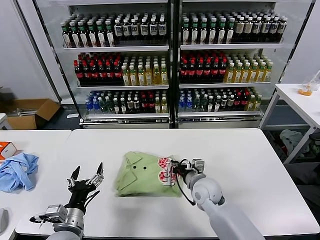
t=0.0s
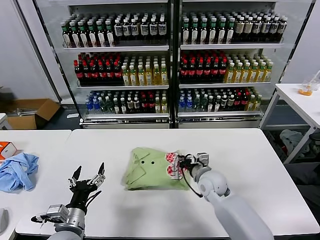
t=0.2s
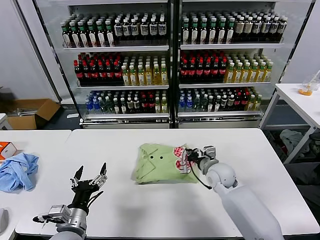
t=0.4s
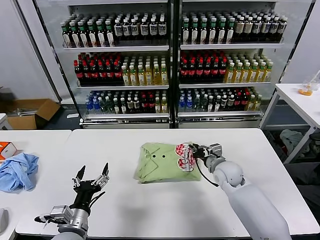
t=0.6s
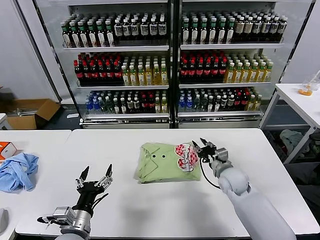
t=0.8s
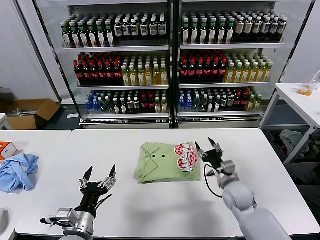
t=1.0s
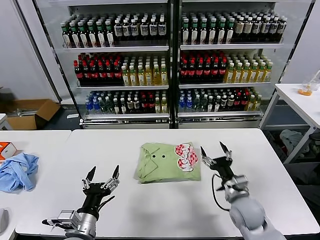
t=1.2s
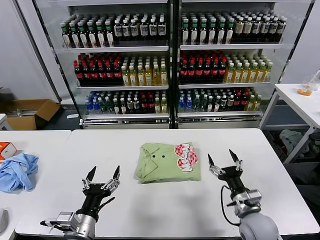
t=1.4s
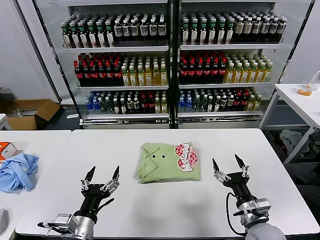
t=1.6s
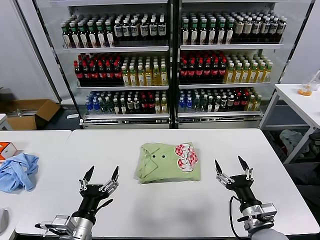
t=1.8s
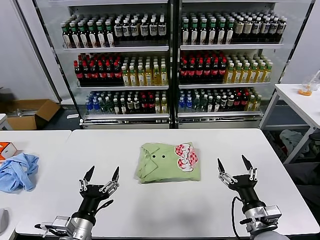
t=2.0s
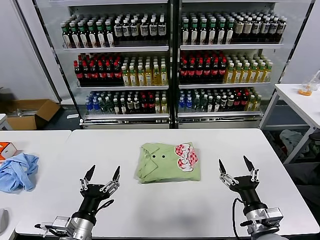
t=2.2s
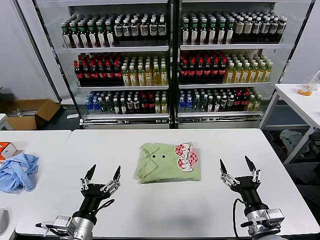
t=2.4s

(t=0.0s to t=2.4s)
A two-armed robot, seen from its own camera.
Task of the whole recording: fold and organize the clothes.
t=0.0s - t=1.2s: The right gripper shifts some 15 cm to the right and backward, and opens.
t=1.2s - t=2.4s: The right gripper heads backward, covering approximately 15 cm.

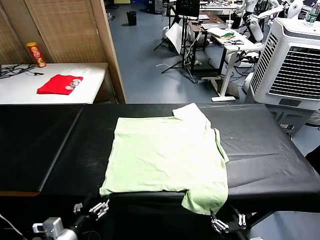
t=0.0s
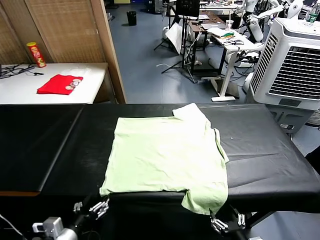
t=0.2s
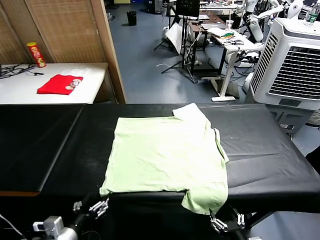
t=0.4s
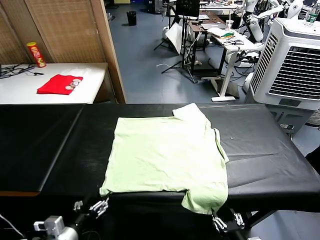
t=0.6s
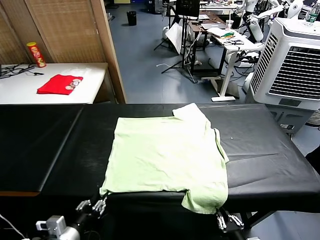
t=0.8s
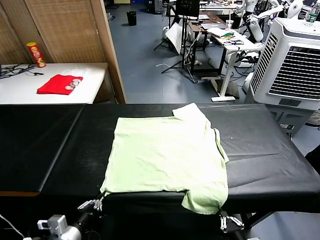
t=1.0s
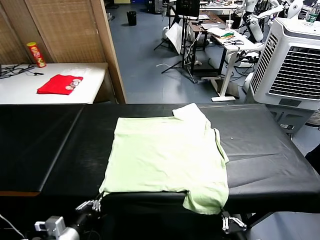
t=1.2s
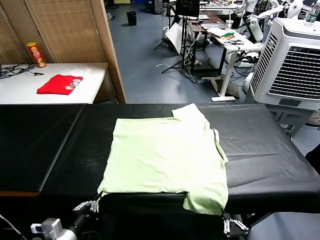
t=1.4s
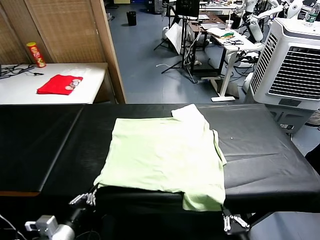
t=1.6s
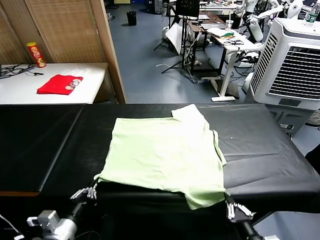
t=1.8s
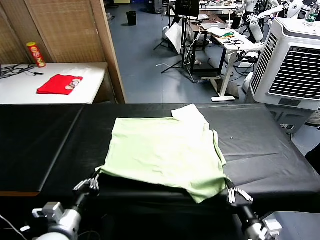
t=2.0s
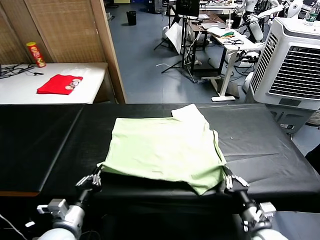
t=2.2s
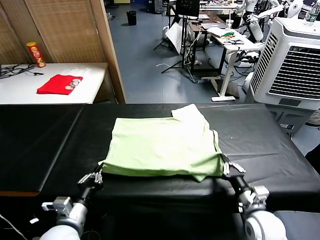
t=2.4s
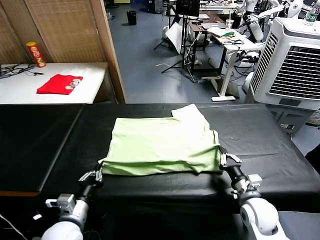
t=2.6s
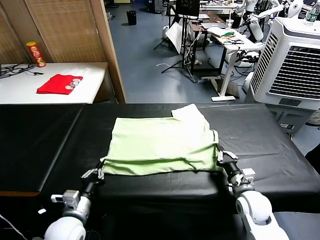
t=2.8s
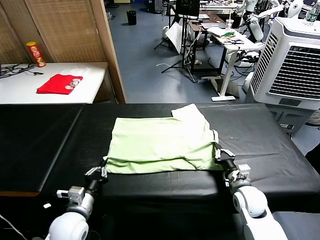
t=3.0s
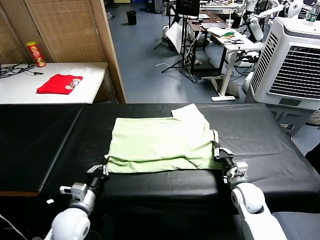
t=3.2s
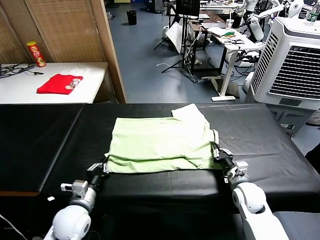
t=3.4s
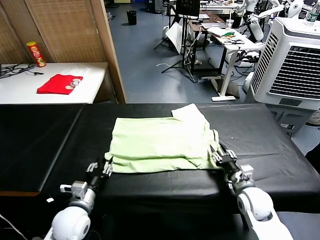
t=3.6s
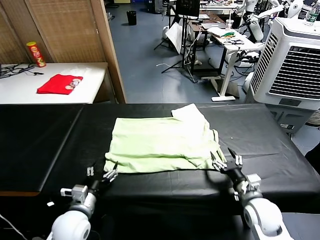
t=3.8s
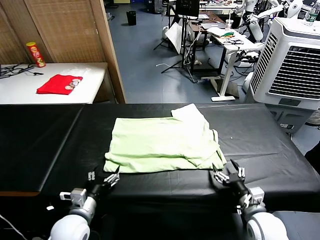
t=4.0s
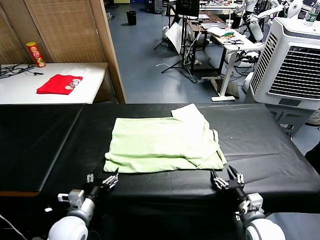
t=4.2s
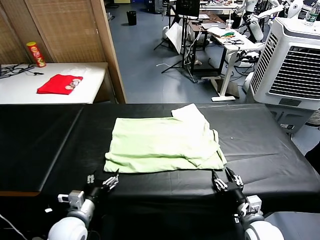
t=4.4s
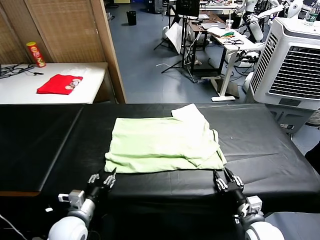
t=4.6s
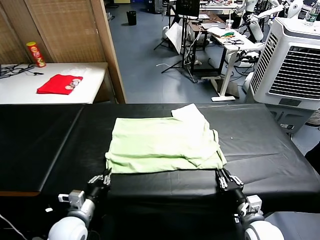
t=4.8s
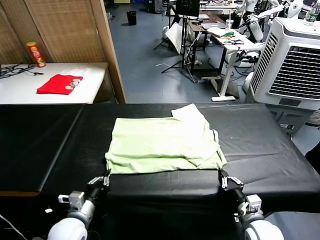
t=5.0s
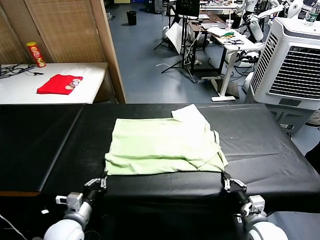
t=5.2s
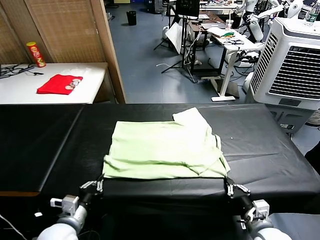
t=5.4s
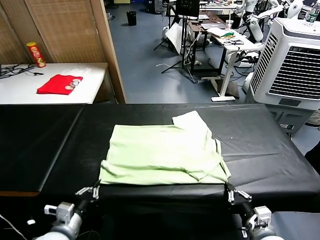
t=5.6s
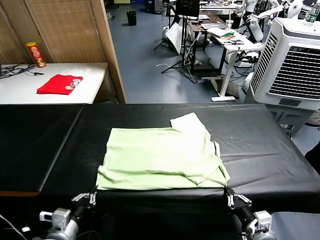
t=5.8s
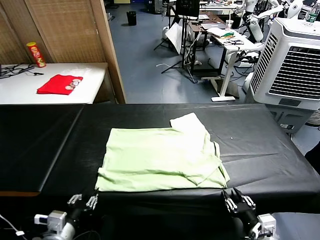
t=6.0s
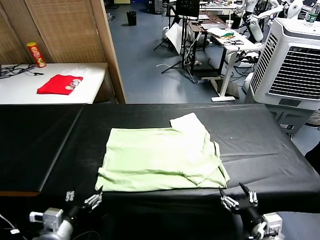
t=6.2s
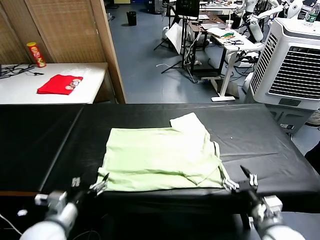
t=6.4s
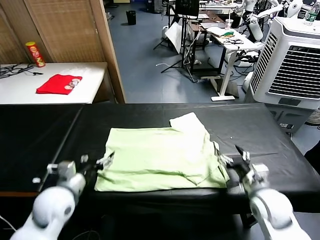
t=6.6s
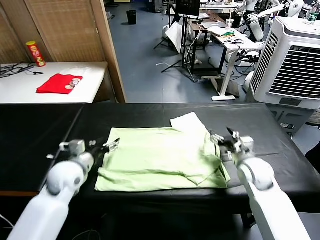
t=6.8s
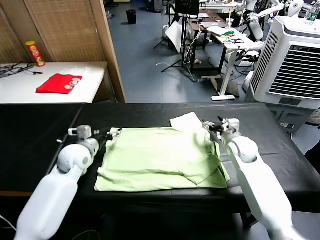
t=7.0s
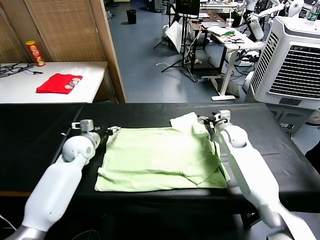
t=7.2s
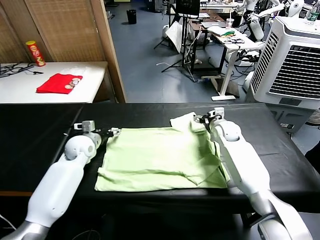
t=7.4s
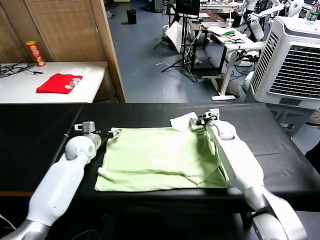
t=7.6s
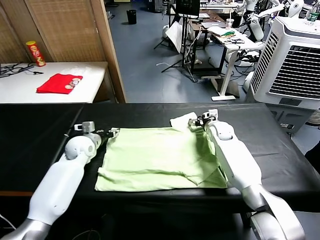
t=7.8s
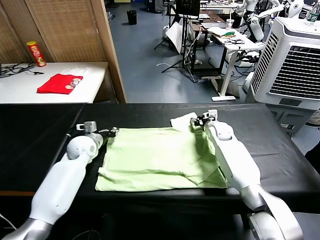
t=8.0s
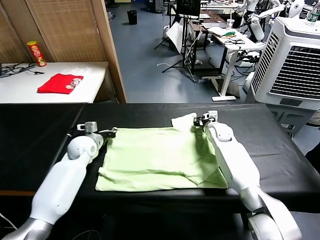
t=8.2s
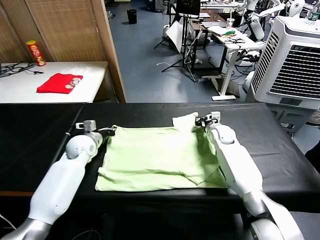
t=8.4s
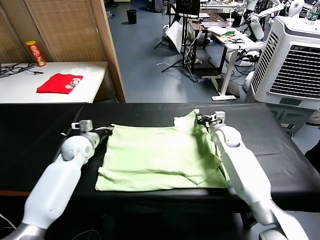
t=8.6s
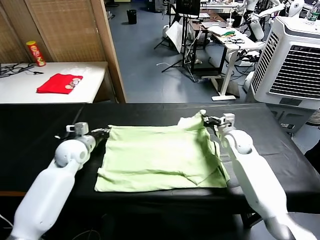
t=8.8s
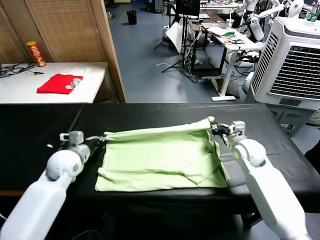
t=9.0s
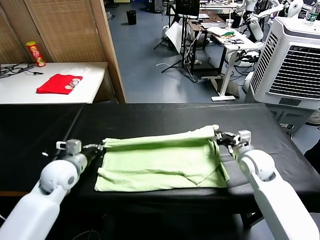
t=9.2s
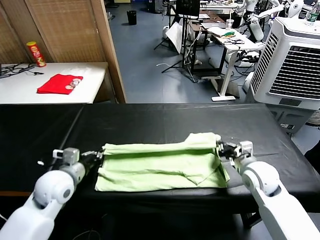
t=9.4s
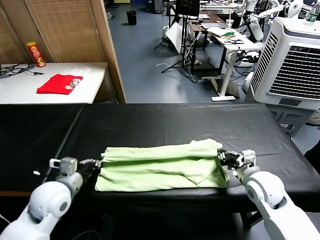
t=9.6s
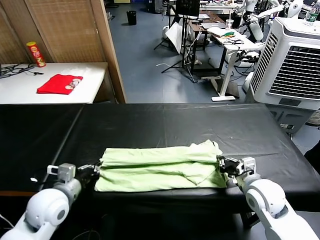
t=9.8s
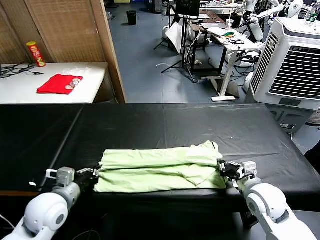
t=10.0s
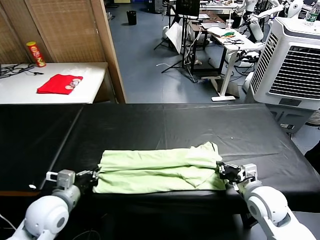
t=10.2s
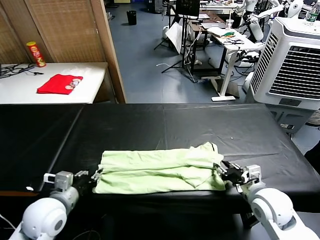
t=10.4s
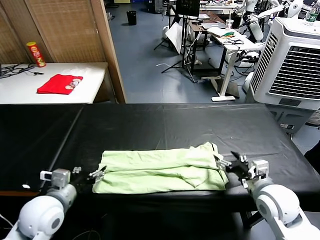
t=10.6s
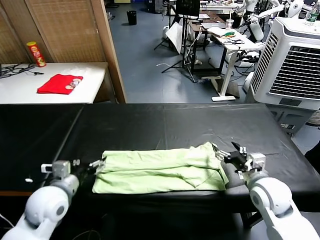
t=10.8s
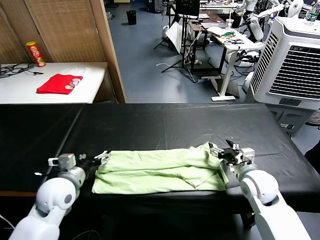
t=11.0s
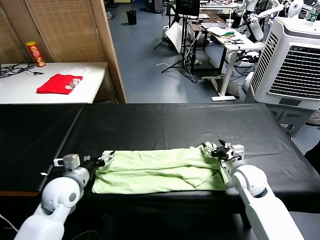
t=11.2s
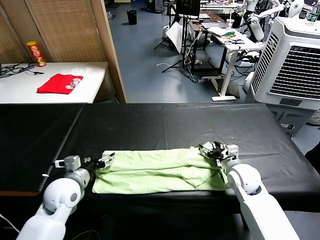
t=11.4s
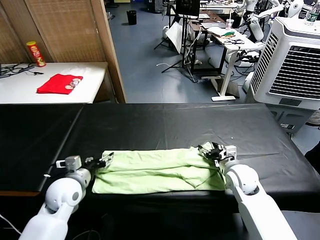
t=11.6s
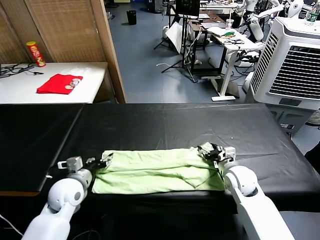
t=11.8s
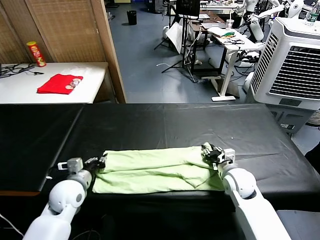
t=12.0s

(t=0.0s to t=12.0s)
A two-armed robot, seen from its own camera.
Task of the whole recording: fold and organize the clothes.
Step, t=0.0s - t=1.2s: use both grippers simultaneously to clamp the lower edge of the clothing fabric.
Step, t=1.4s - t=3.6s: use both grippers to drag the lower edge of the fabric forward and fold it over the upper edge.
Step, t=3.8s - t=6.0s: Drag the clothes downward with both gripper.
Step, t=6.2s - t=8.2s: use both grippers simultaneously to clamp the upper edge of the clothing fabric.
Step, t=8.4s - t=10.6s: use both grippers to drag the upper edge of the fabric backward and fold it over the lower edge.
t=1.6s - t=3.0s: The left gripper shifts about 10 cm forward and downward. The right gripper is displaced forward by roughly 20 cm.
t=3.0s - t=4.4s: The left gripper opens; the right gripper travels backward by roughly 15 cm, and opens.
t=4.4s - t=6.0s: The left gripper moves backward and upward, roughly 10 cm, and closes, then opens again, while the right gripper is displaced upward and backward by about 10 cm, and opens up.
t=6.0s - t=7.6s: The two grippers go some 40 cm forward. The left gripper opens its fingers.
t=7.6s - t=9.0s: The right gripper goes roughly 20 cm backward, and closes its fingers; the left gripper is displaced backward by approximately 10 cm, and closes.
t=9.0s - t=10.4s: The grippers both shift backward by roughly 15 cm. The right gripper opens its fingers. Meanwhile the left gripper opens.
t=10.4s - t=12.0s: The left gripper heads forward and downward, covering about 10 cm, and opens, then closes again, while the right gripper goes about 15 cm forward, downward and to the left, and closes.

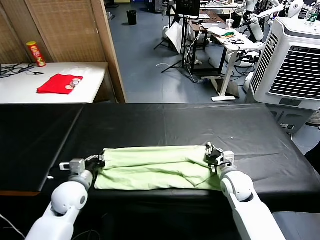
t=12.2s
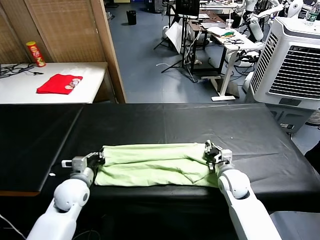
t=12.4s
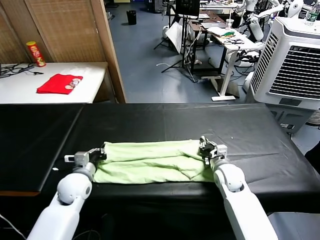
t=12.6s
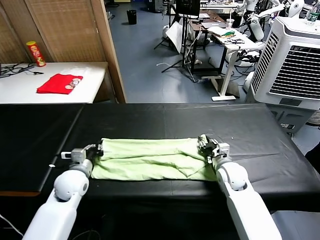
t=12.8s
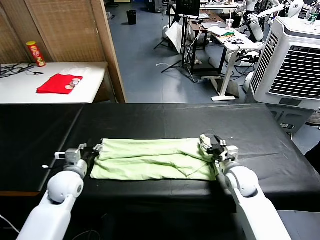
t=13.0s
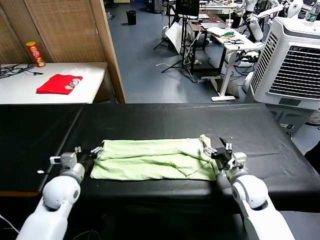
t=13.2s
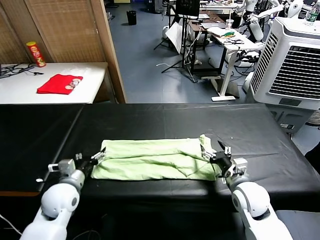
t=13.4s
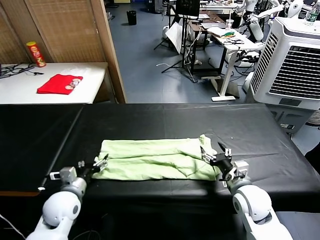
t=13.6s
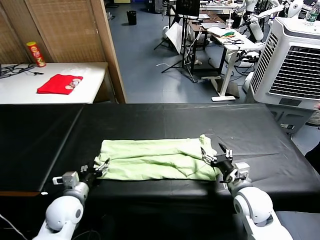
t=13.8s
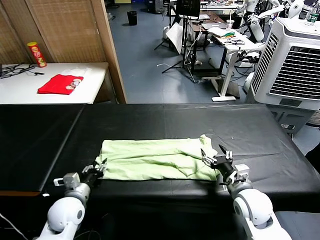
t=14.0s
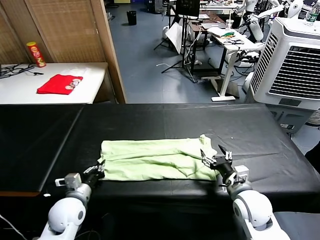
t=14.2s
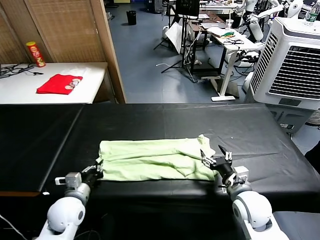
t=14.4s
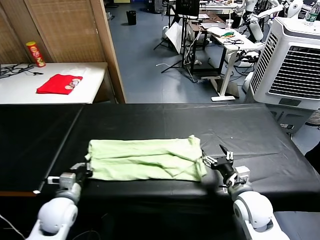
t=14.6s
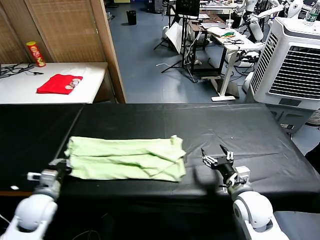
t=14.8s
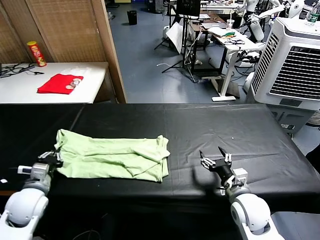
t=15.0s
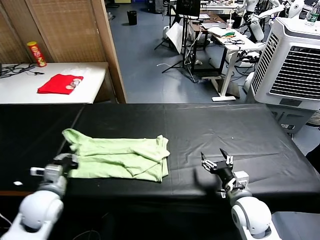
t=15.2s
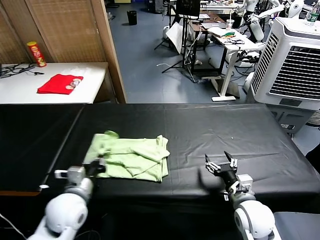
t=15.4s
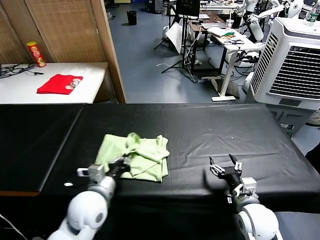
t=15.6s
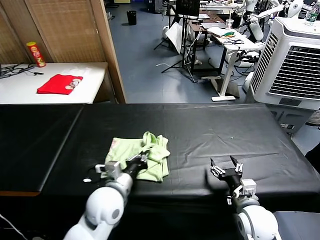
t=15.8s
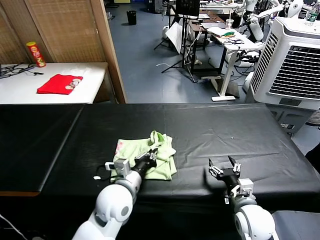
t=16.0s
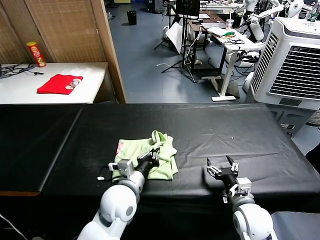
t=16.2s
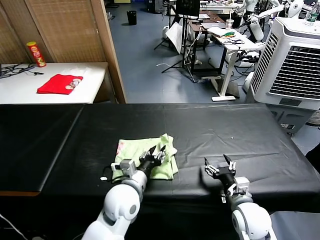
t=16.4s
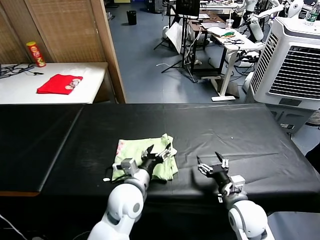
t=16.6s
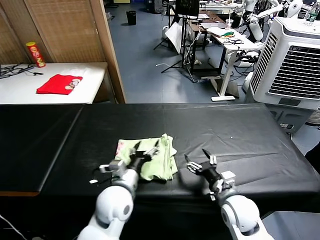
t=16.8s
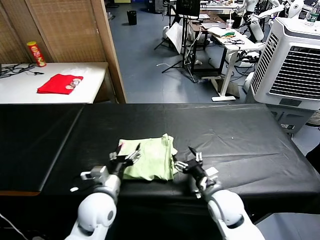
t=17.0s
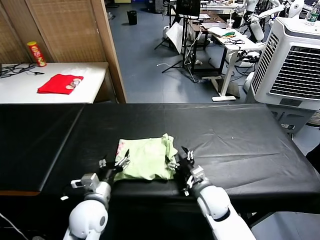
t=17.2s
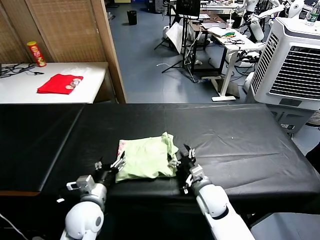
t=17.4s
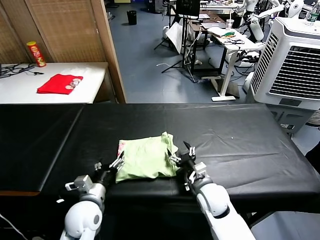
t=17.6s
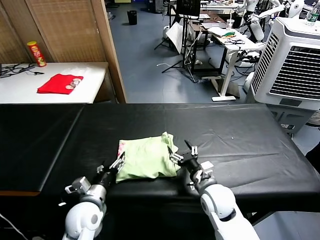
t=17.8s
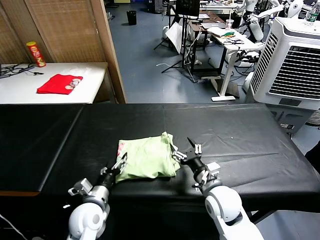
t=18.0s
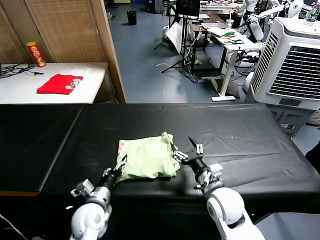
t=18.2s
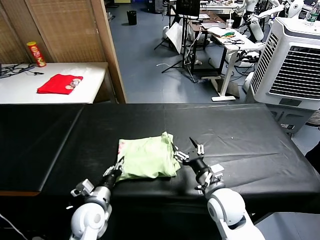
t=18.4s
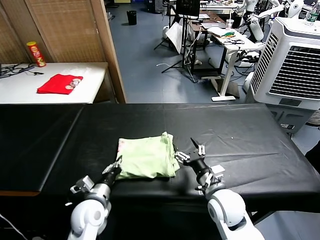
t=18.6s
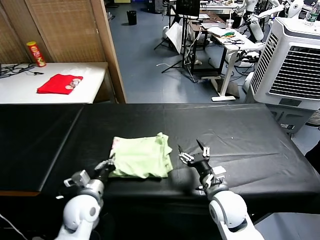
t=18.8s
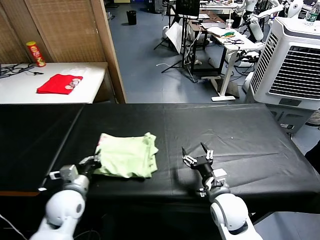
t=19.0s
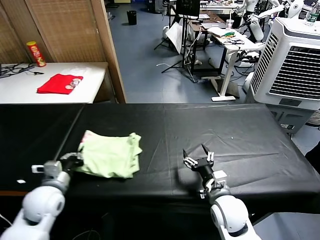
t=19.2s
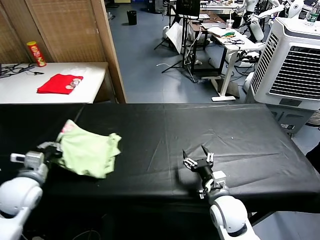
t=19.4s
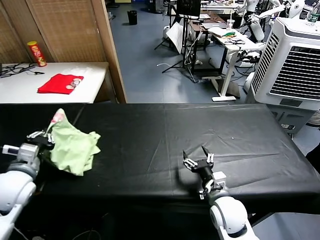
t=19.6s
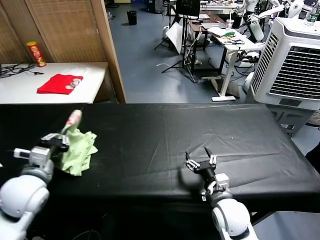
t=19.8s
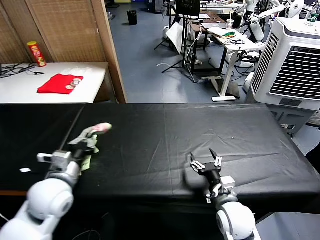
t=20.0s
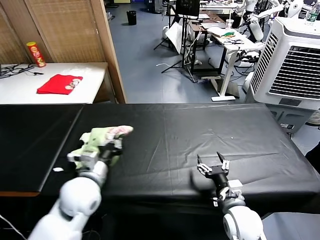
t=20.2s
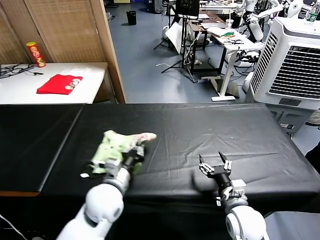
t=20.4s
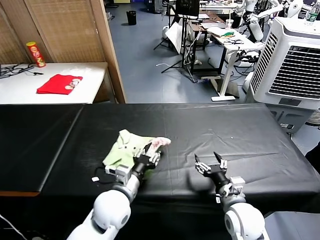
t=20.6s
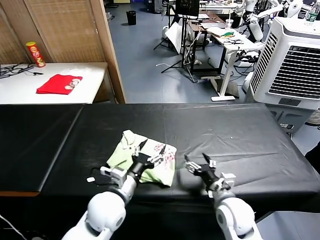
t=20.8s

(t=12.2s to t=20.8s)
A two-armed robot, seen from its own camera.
Task of the whole recording: fold and organize the clothes.
Step, t=12.2s - t=14.2s: use the left gripper to clamp the left edge of the fabric.
Step, t=14.4s - t=16.6s: use the left gripper to drag the left edge of the fabric to the left and folds it over the right edge.
Step, t=16.8s - t=20.6s: Flip the folded clothes over with left gripper.
t=12.2s - t=13.6s: The right gripper moves backward, roughly 10 cm, and opens its fingers; the left gripper opens up.
t=13.6s - t=15.0s: The left gripper goes about 10 cm to the left, and closes.
t=15.0s - t=16.6s: The left gripper moves to the right, approximately 30 cm, and opens up.
t=16.6s - t=18.0s: The left gripper travels to the left and downward by approximately 15 cm. The right gripper shifts approximately 5 cm to the left.
t=18.0s - t=19.4s: The left gripper moves to the left and upward, roughly 20 cm, and closes up.
t=19.4s - t=20.8s: The left gripper moves to the right, about 25 cm, and opens.
